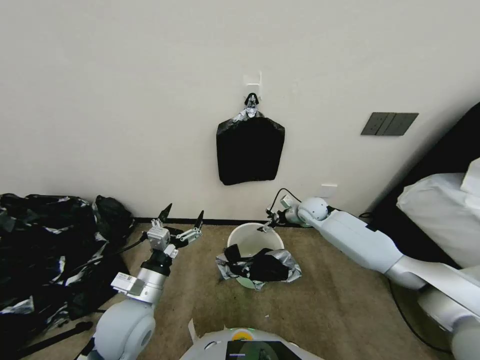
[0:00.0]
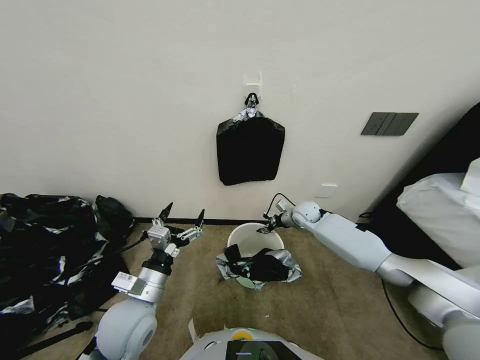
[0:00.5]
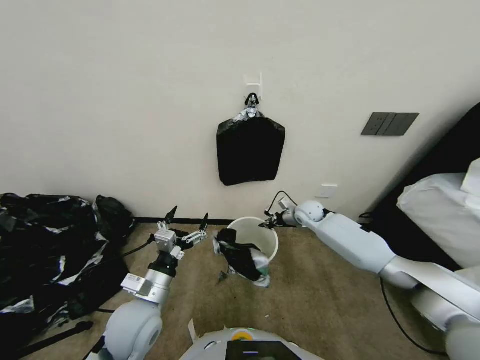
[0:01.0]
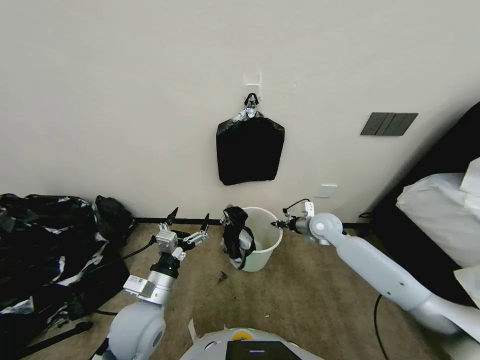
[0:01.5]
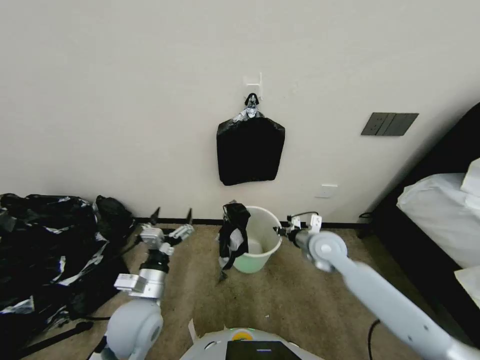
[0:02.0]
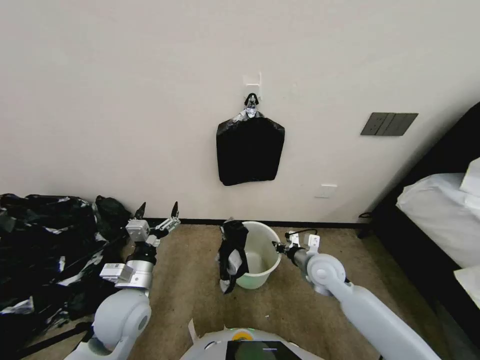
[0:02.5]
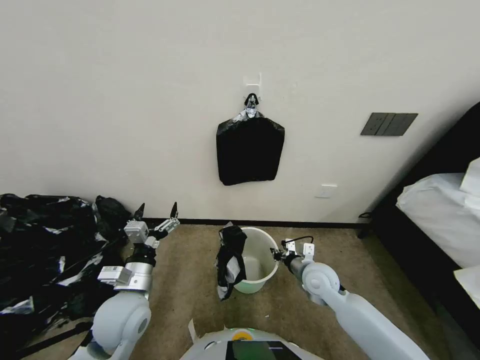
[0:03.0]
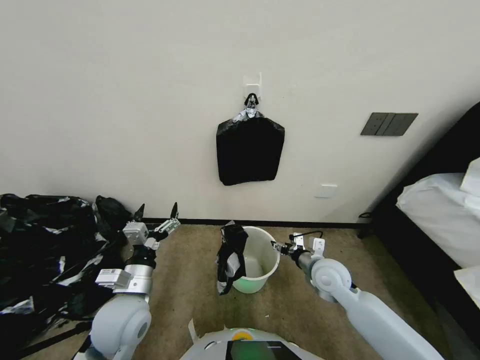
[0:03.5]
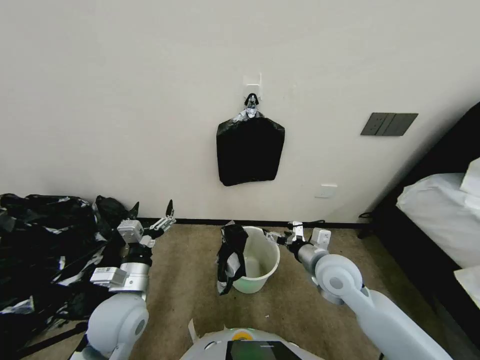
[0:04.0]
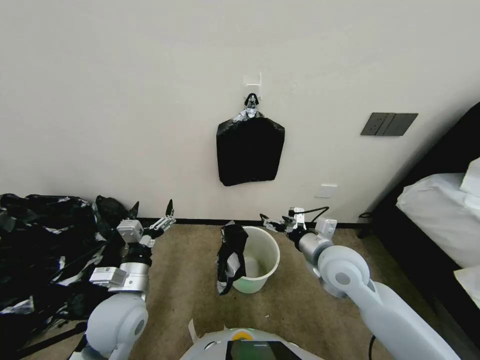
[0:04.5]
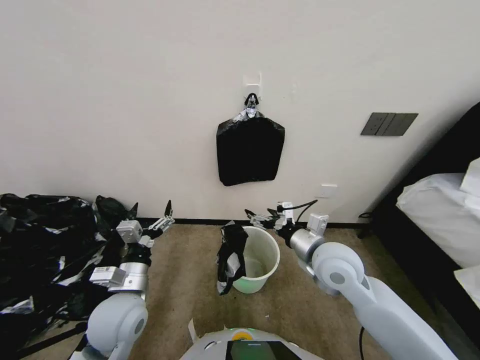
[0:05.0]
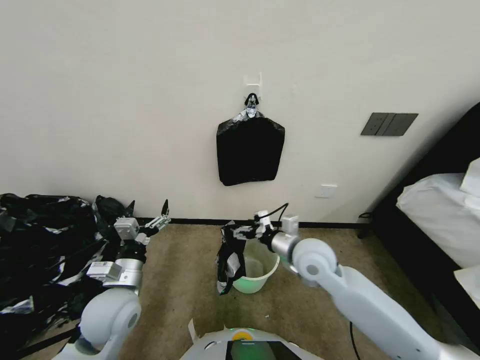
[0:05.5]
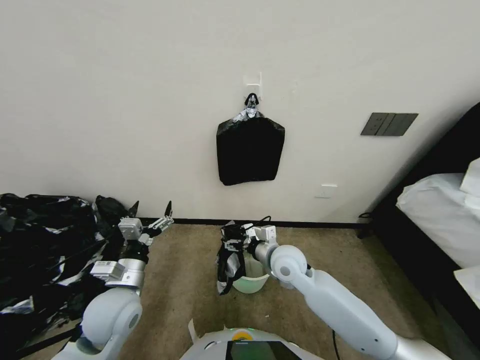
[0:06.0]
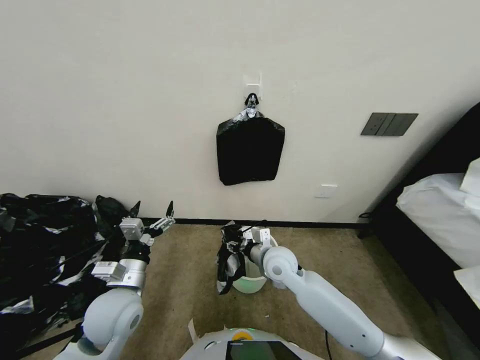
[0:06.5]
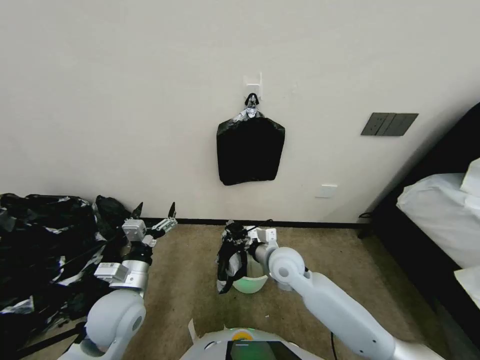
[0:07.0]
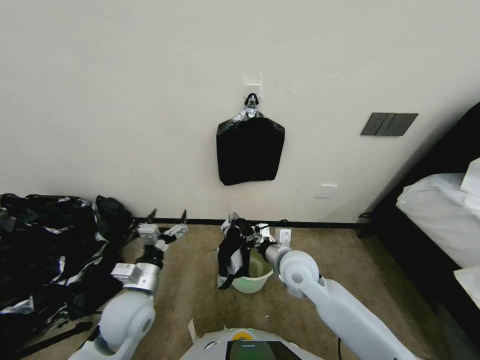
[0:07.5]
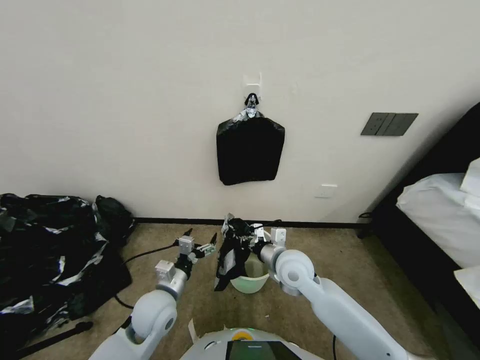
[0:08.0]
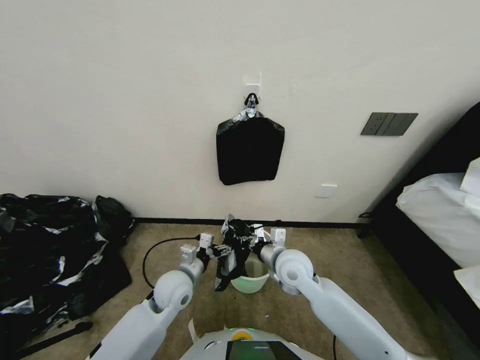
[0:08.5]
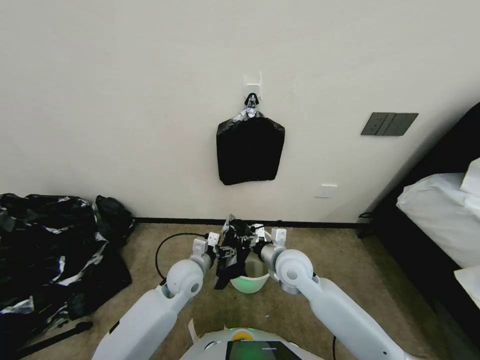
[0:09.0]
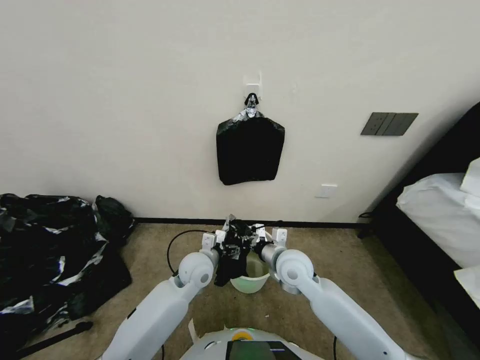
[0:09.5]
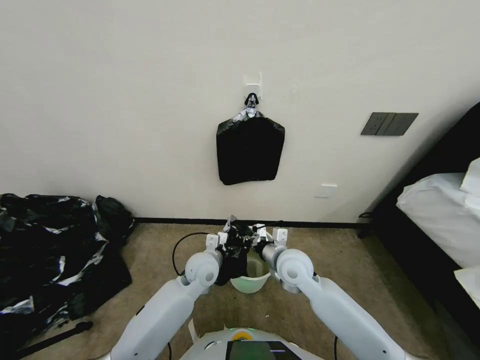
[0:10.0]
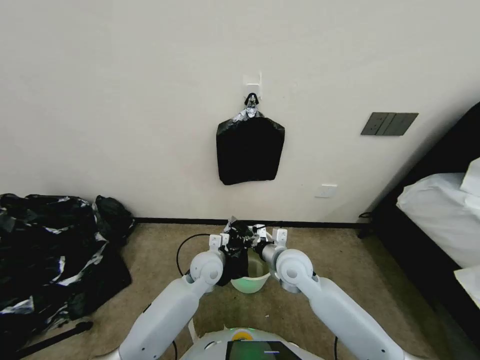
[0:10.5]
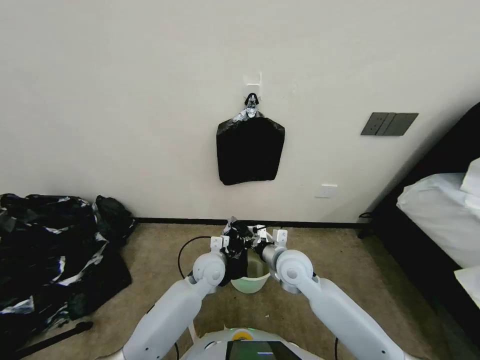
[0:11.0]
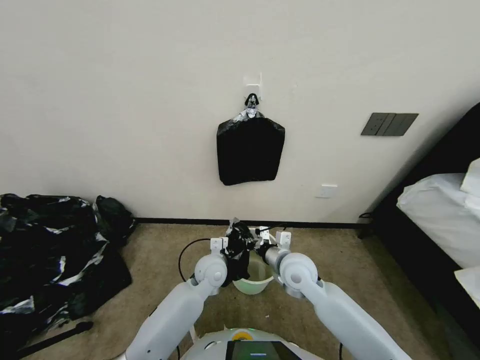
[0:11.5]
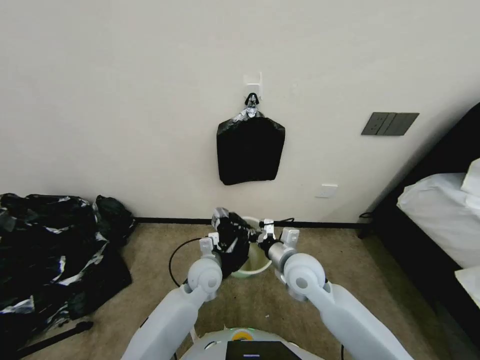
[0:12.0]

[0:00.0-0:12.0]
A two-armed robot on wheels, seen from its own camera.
Task of the whole recording: Place a trash bag onto the trash bin.
0:00.0 to 0:02.0: The right gripper heads backward, covering some 15 cm, and closes its fingers.
0:02.0 to 0:04.0: The right gripper shifts roughly 10 cm backward, and opens up.
0:04.0 to 0:06.0: The right gripper goes about 10 cm to the left.
0:06.0 to 0:08.0: The right gripper closes up; the left gripper shifts roughly 10 cm to the right and downward.
0:08.0 to 0:10.0: The left gripper is displaced forward and to the right by roughly 15 cm.
0:10.0 to 0:12.0: The left gripper closes its fingers.

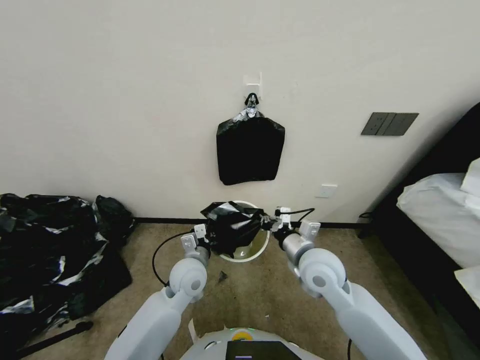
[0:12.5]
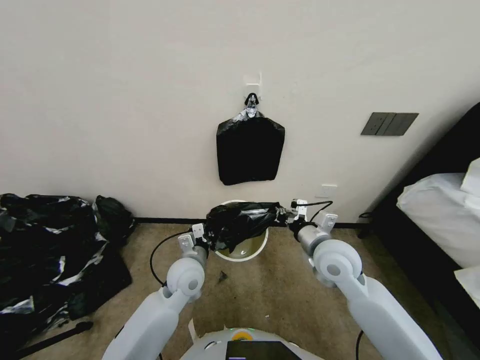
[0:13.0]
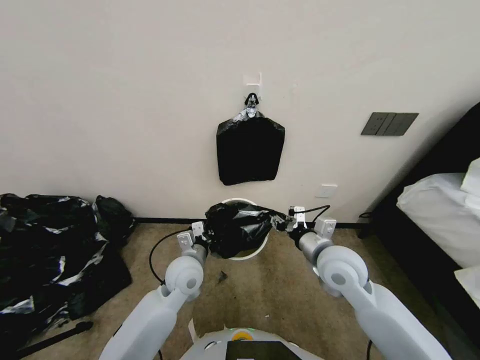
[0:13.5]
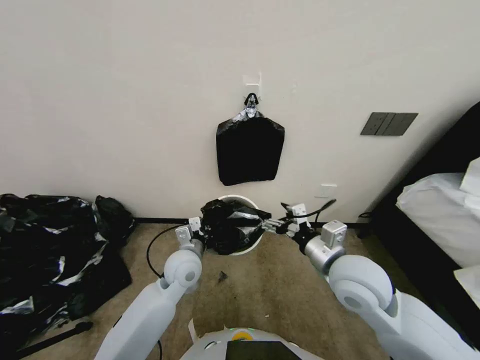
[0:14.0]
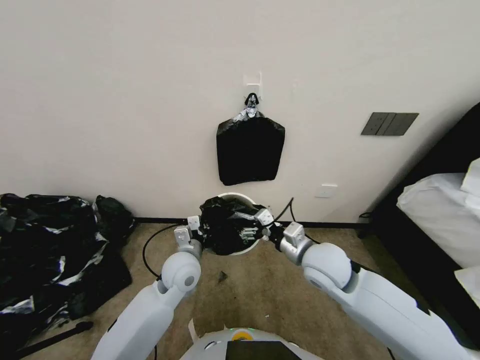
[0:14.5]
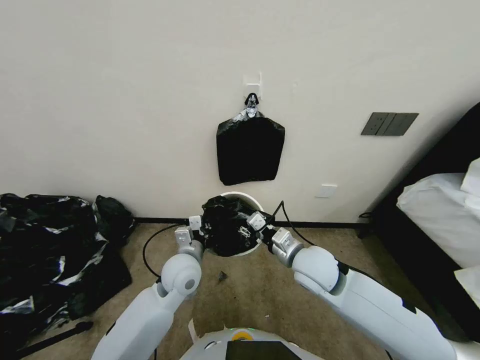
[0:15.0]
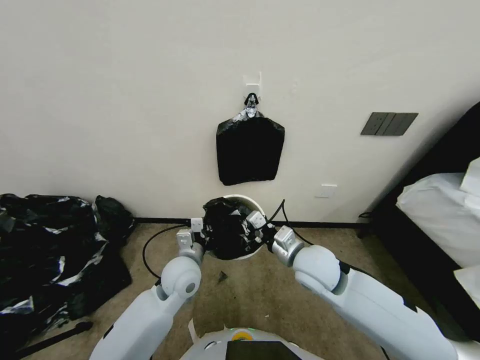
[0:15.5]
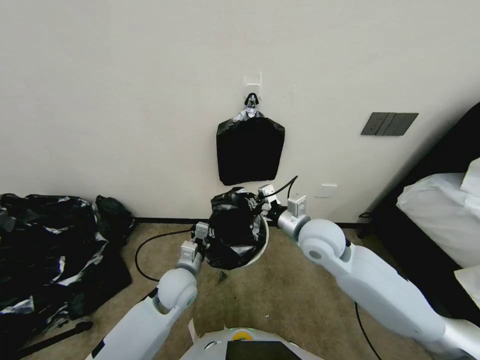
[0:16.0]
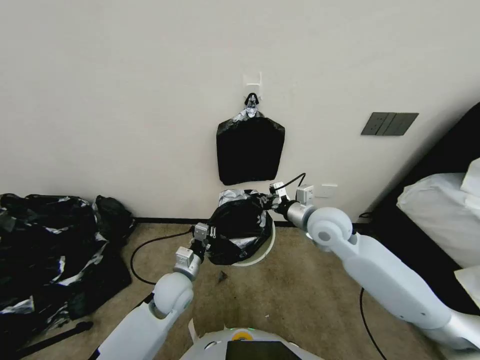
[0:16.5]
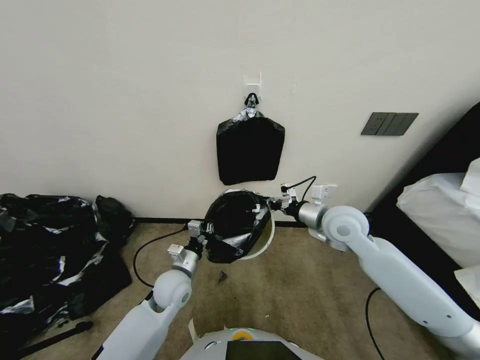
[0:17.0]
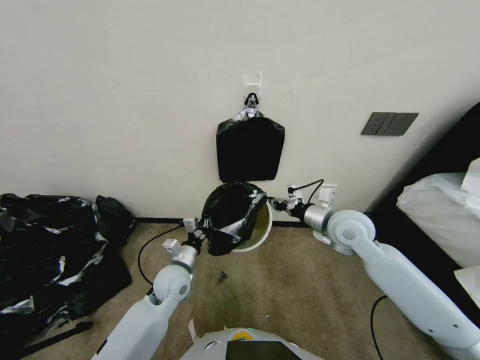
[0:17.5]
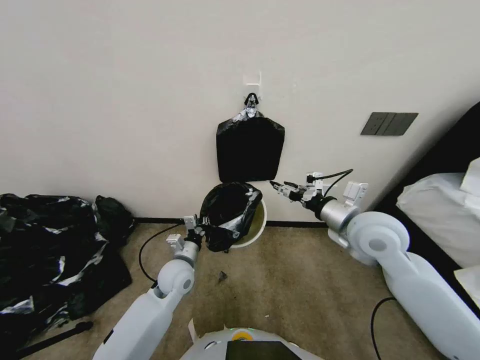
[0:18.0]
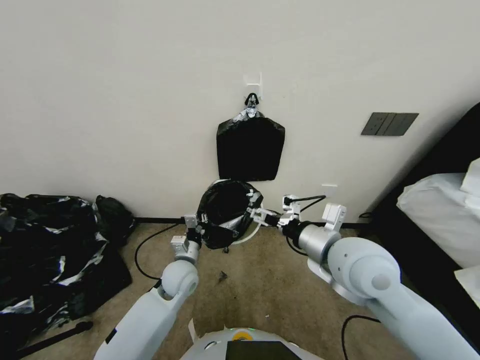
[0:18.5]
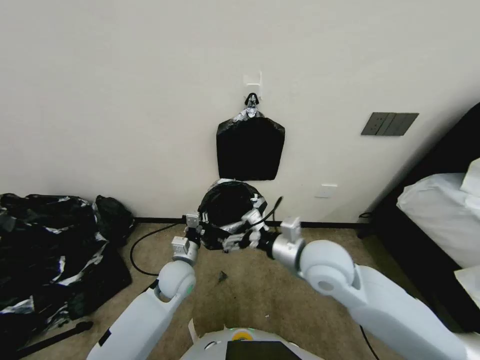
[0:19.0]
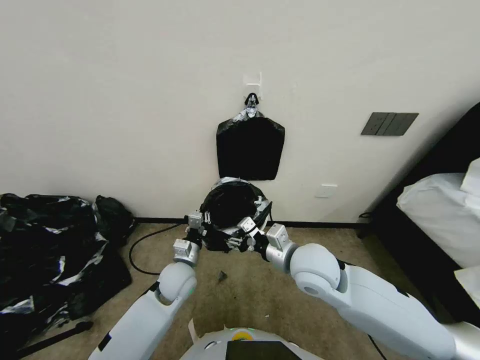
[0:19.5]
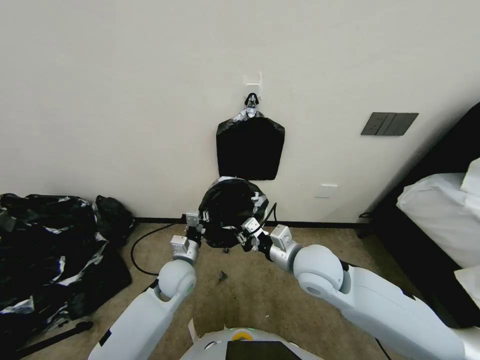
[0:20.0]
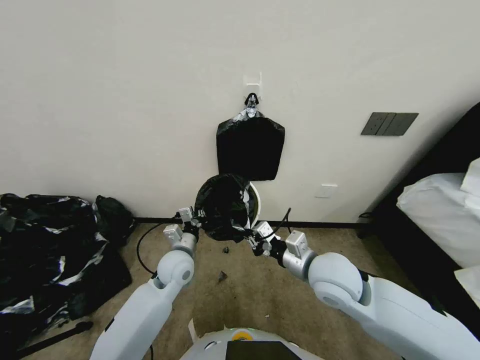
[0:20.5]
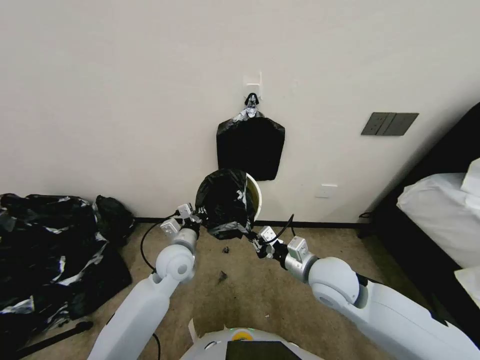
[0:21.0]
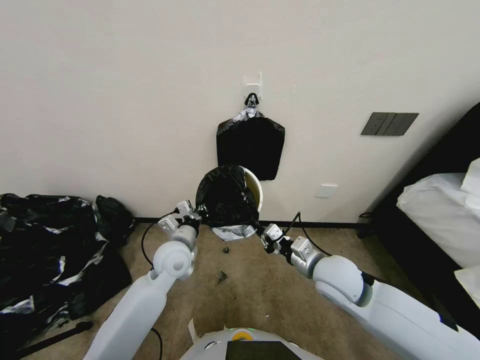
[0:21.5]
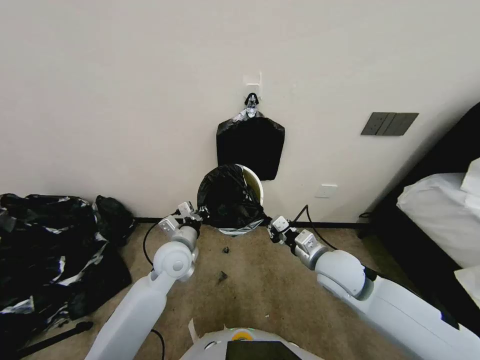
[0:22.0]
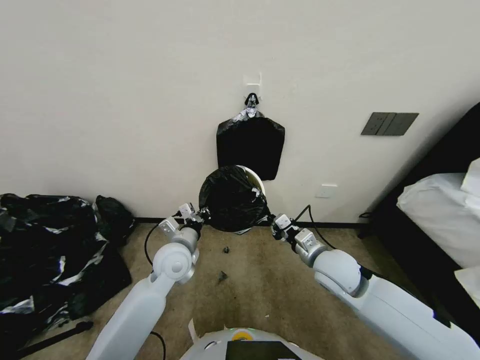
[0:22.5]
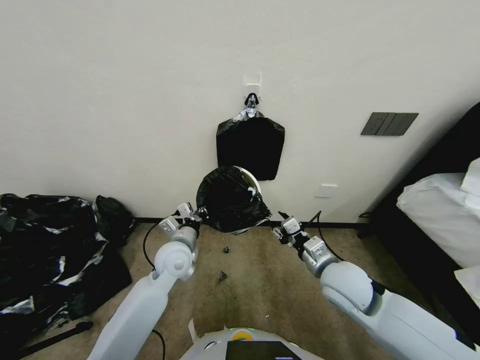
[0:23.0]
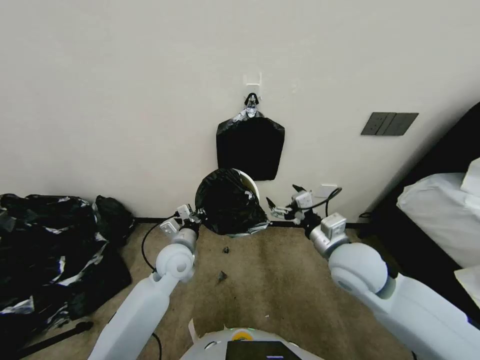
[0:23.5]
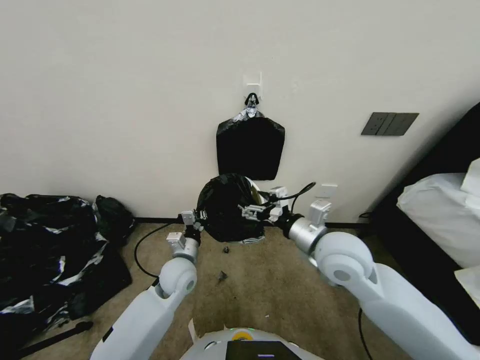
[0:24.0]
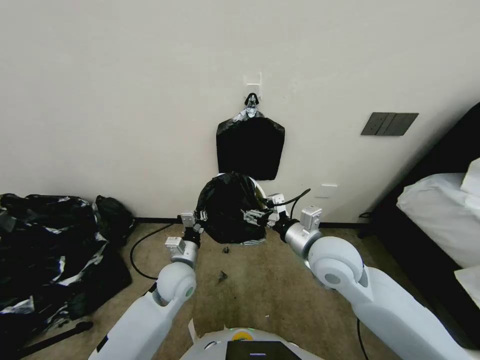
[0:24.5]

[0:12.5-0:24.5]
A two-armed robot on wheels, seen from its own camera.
Task of the whole recording: Place a trash bag onto the trash bin.
0:12.5 to 0:14.5: The right gripper opens up.
0:14.5 to 0:16.5: The left gripper moves downward, about 5 cm; the right gripper is displaced forward by approximately 10 cm, and closes its fingers.
0:16.5 to 0:18.5: The right gripper shifts about 10 cm backward, and opens up.
0:18.5 to 0:20.5: The right gripper goes approximately 5 cm downward, and closes its fingers.
0:20.5 to 0:22.5: The right gripper goes approximately 5 cm downward. The left gripper moves upward, some 5 cm.
0:22.5 to 0:24.5: The right gripper moves upward, about 10 cm, and opens its fingers. The left gripper shifts approximately 5 cm downward.

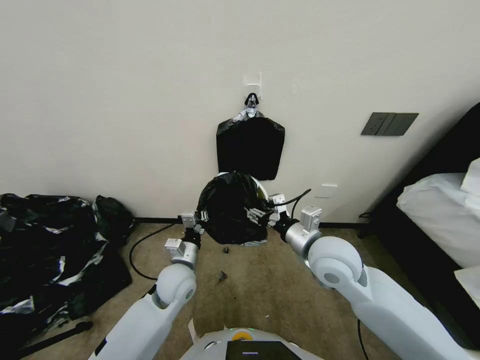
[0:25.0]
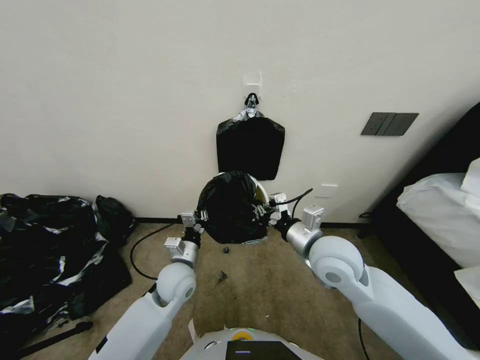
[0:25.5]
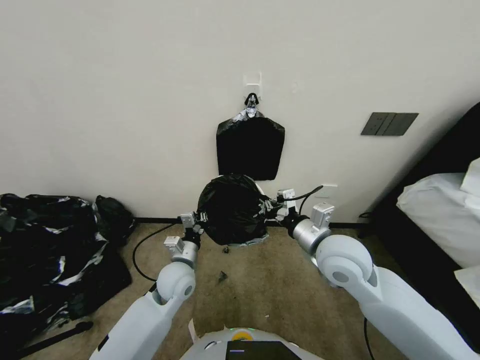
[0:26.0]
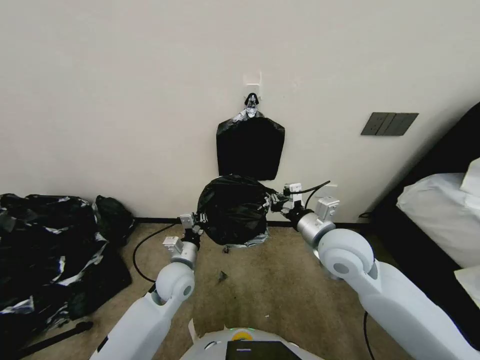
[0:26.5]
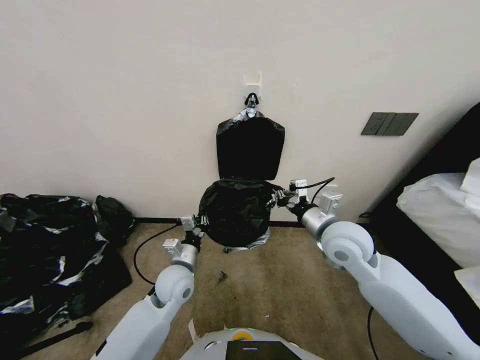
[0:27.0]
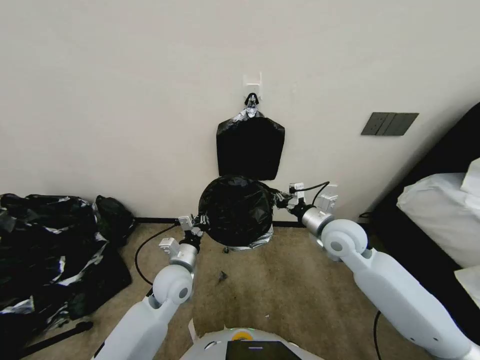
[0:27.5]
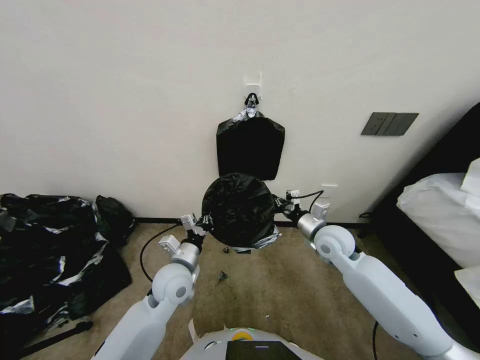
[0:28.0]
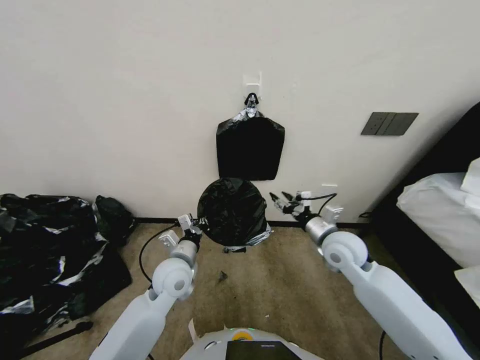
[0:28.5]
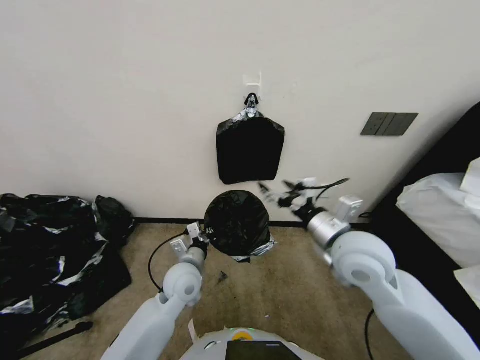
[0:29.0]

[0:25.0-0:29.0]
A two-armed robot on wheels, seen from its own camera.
Task of the whole recording: Place a trash bag onto the trash bin.
0:25.0 to 0:27.0: The right gripper closes its fingers.
0:27.0 to 0:29.0: The right gripper goes downward and returns, some 10 cm each way, and opens.
